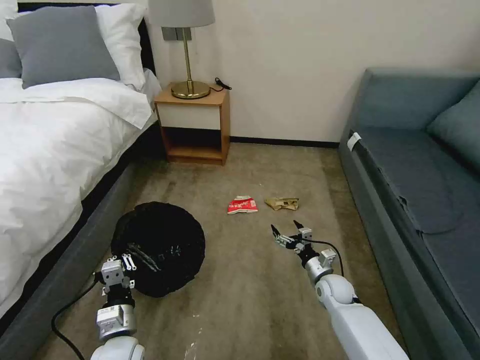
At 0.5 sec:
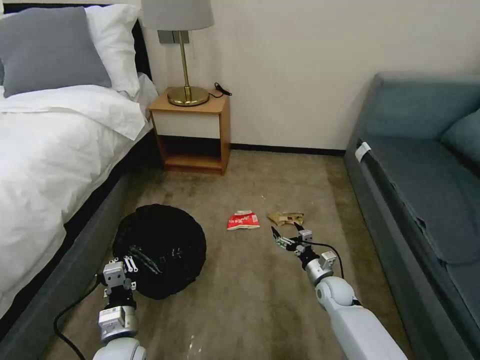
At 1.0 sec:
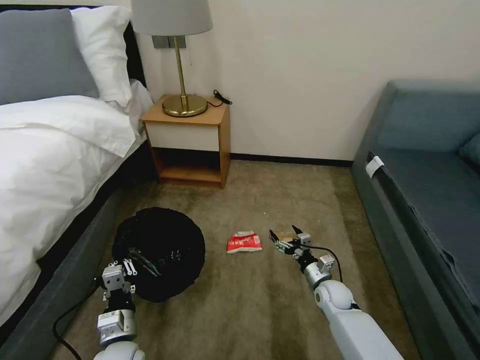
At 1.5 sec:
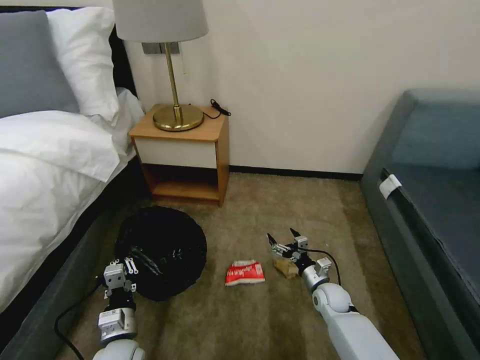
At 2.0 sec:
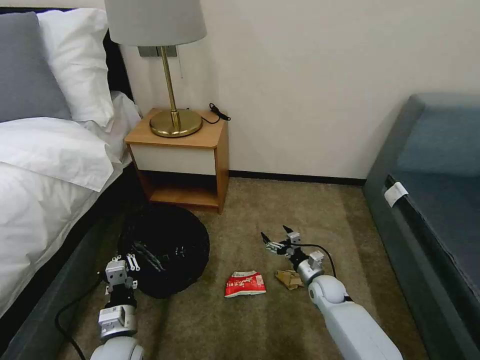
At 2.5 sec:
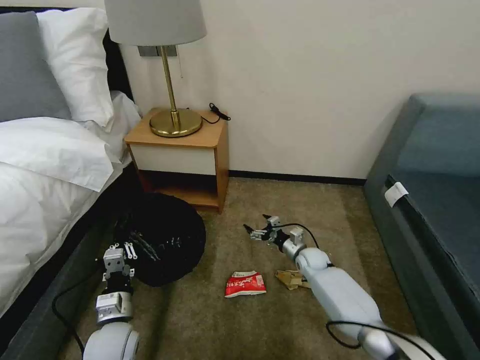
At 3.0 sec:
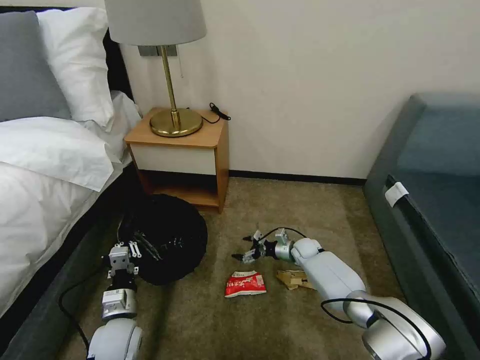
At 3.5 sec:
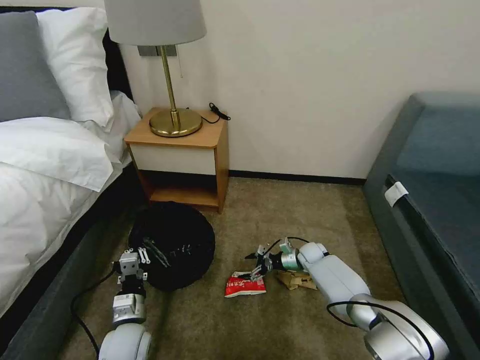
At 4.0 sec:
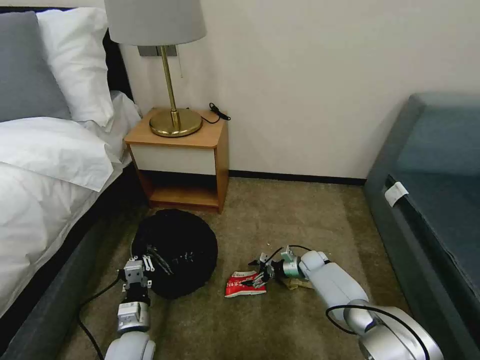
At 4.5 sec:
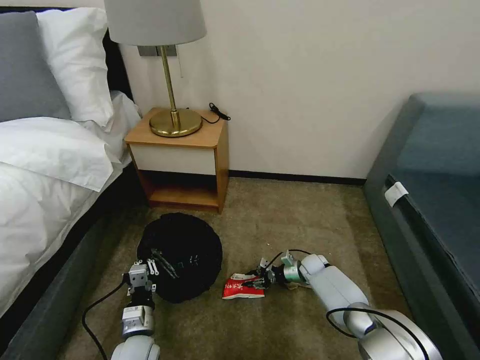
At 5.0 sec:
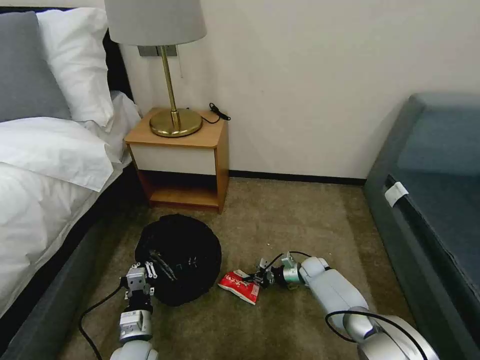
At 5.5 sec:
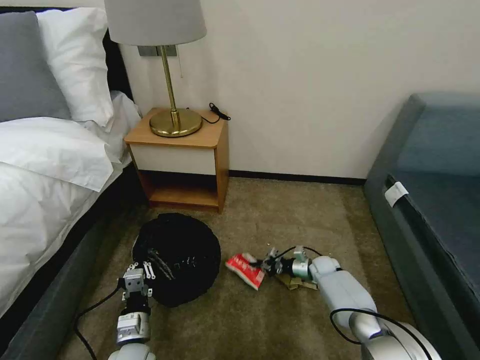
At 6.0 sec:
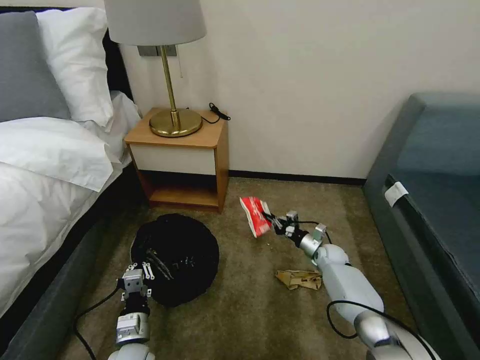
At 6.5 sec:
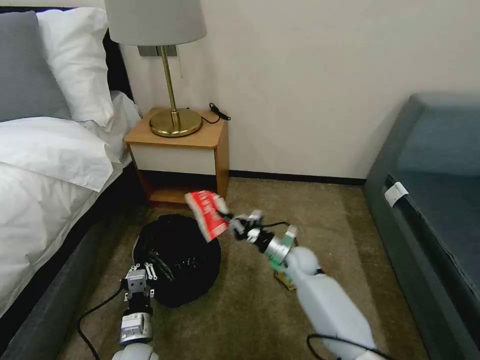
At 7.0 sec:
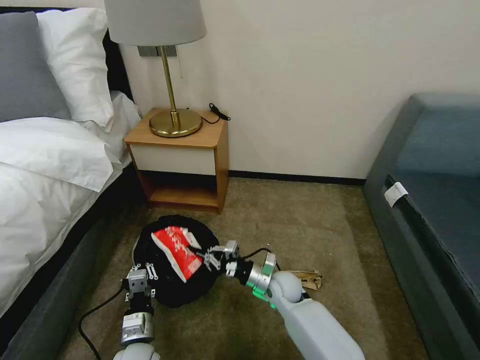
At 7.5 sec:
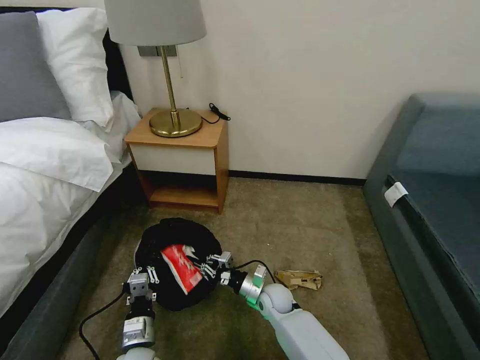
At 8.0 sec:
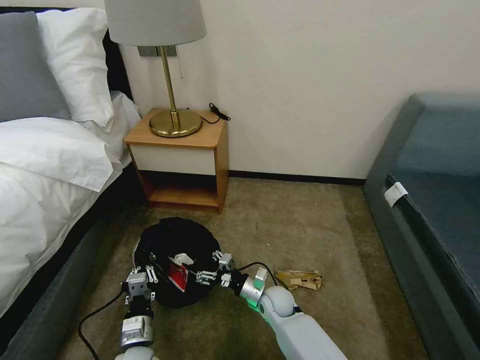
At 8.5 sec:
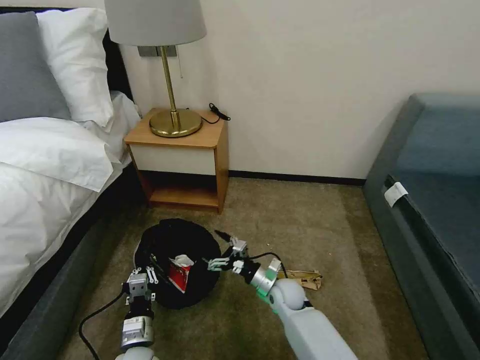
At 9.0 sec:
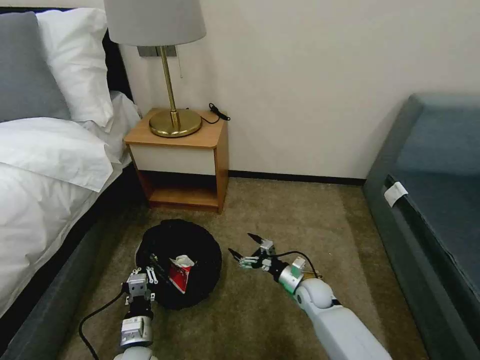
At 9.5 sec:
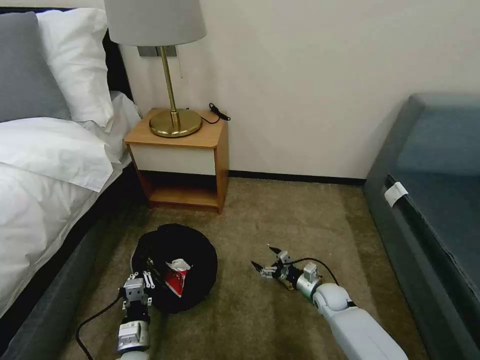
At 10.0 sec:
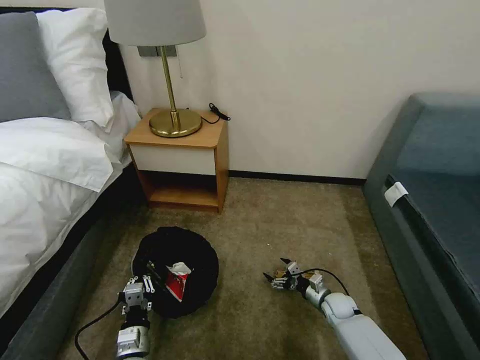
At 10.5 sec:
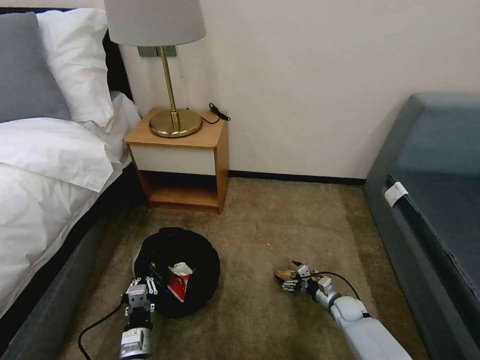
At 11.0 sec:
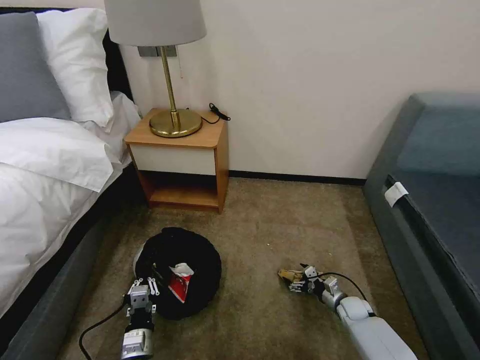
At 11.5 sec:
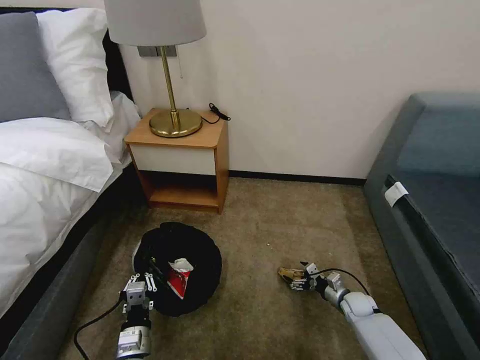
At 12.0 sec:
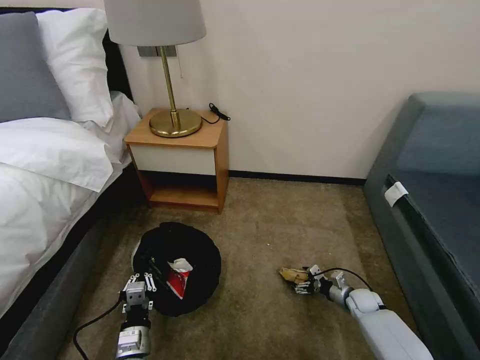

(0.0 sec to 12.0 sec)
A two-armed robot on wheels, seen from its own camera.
Task of the whole recording: Pick up the trash bin, then pick up the garbage on the floor and place it into the trash bin.
2.0 sec - 4.0 sec: The right gripper shifts about 10 cm forward.
4.0 sec - 6.0 sec: The right gripper changes place by some 5 cm, and closes up.
6.0 sec - 8.0 sec: The right gripper goes roughly 25 cm to the left and backward, and opens up.
8.0 sec - 10.0 sec: The right gripper heads to the right, covering roughly 20 cm.
10.0 sec - 12.0 sec: The right gripper goes some 10 cm to the right.

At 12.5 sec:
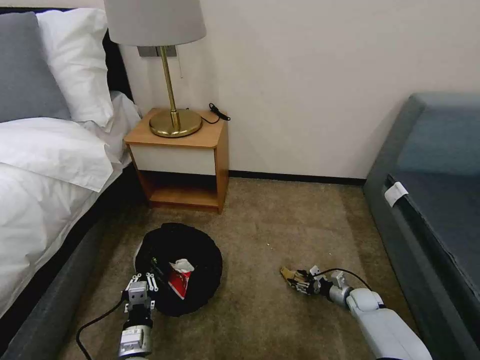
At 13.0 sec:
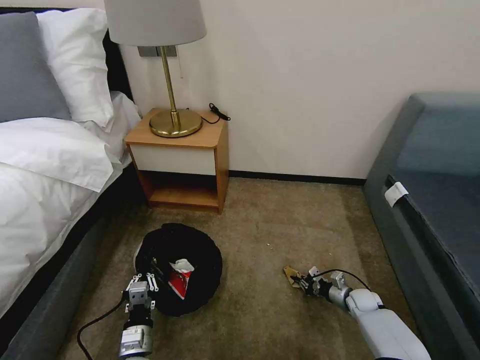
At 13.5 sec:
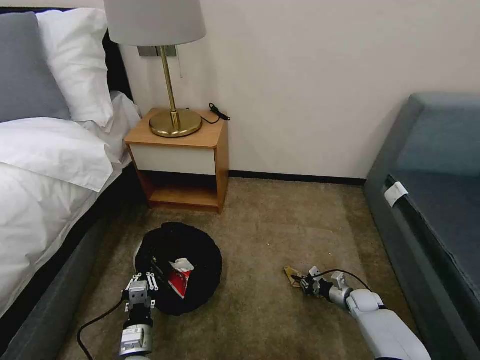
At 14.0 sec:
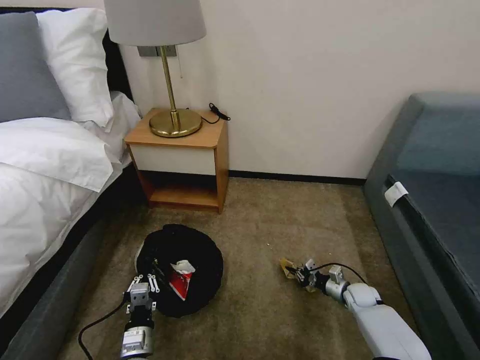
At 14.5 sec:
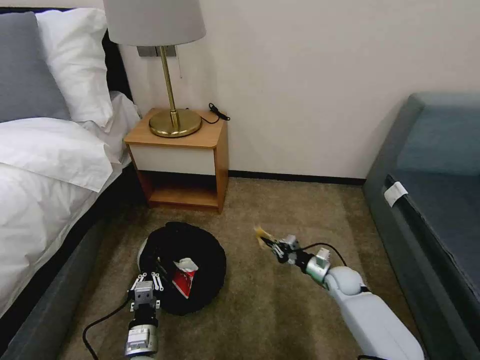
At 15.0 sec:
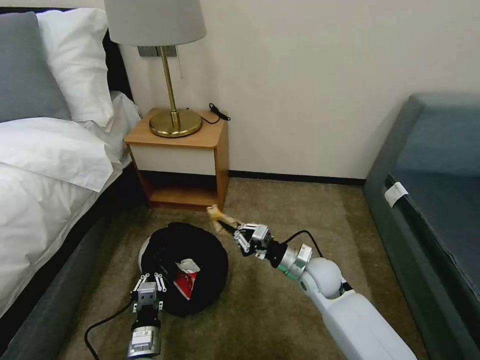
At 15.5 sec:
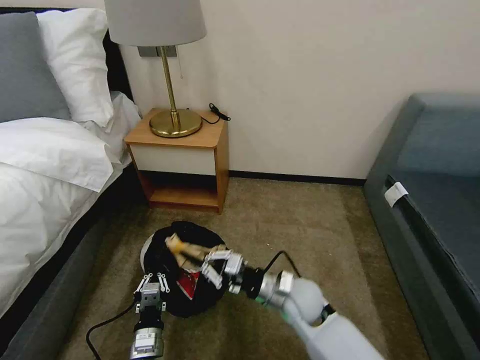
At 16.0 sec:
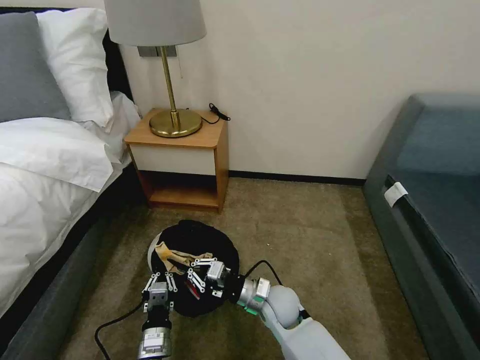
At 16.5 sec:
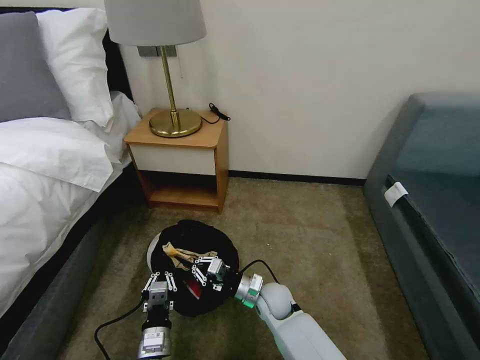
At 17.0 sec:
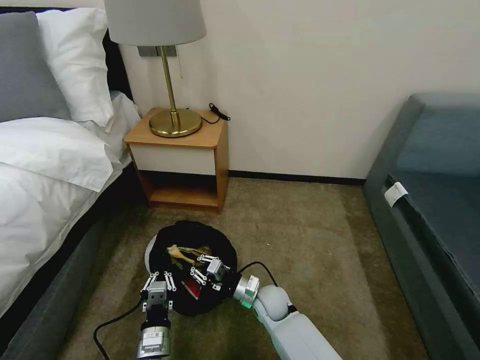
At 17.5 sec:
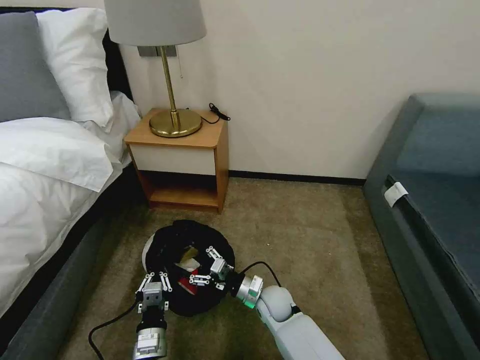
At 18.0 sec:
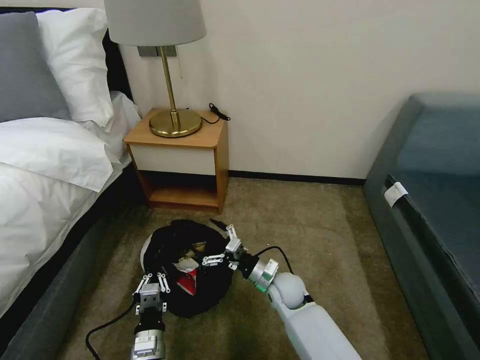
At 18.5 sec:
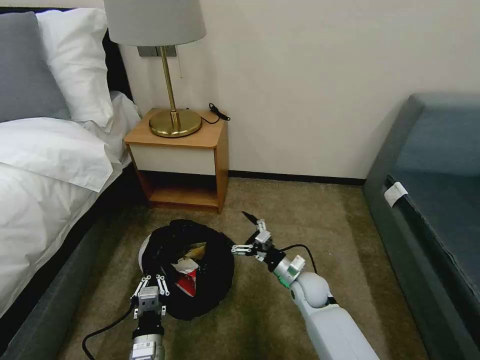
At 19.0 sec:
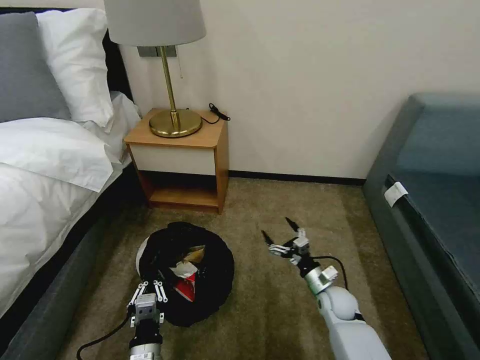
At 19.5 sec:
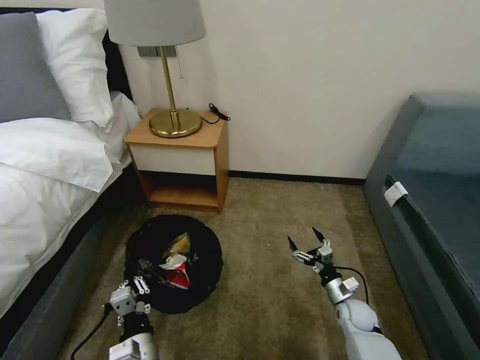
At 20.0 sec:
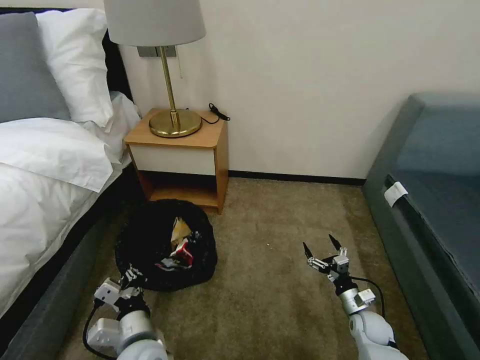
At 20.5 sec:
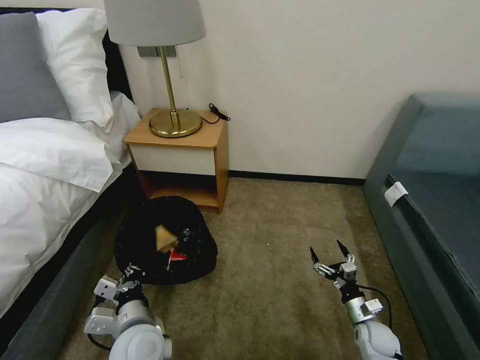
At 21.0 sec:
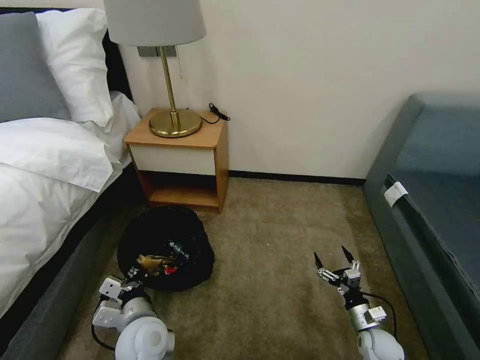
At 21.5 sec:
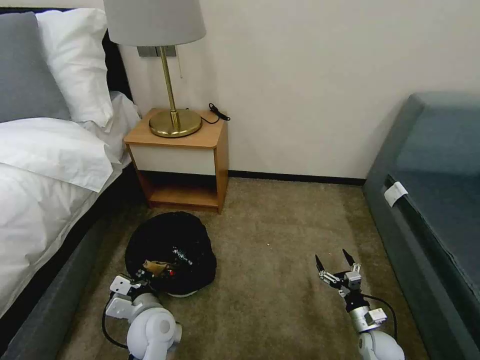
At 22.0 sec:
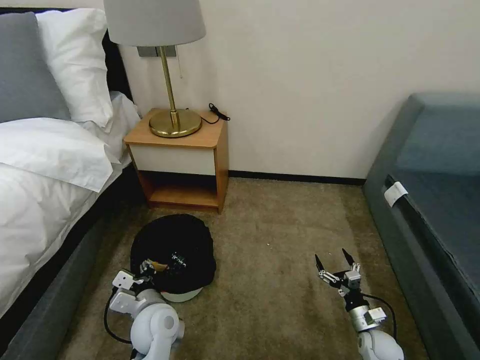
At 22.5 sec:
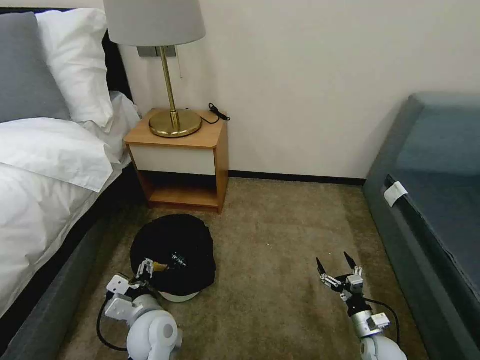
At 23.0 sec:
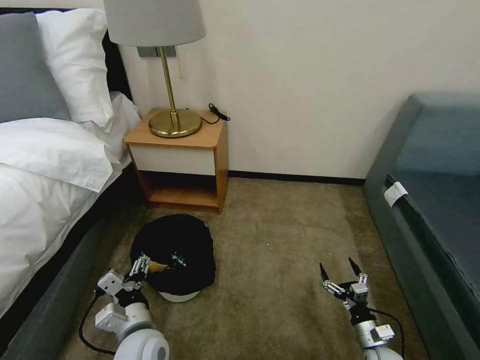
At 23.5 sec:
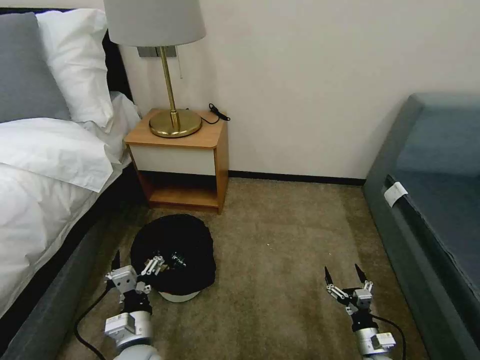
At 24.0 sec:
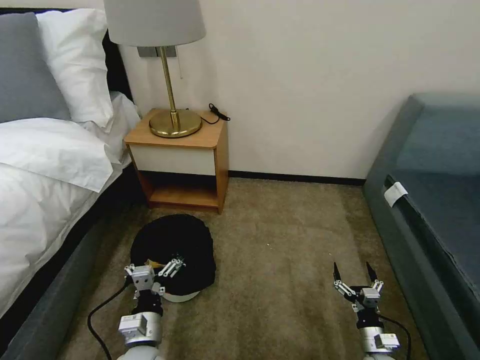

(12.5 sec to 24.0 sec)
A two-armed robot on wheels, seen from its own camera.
Task of the whole recording: Pick up the trash bin, then pick up the garbage on the floor and place it into the trash bin.
12.5 sec - 14.5 sec: The right gripper shifts roughly 15 cm to the left and upward, and closes up.
14.5 sec - 16.5 sec: The right gripper travels to the left by roughly 20 cm.
16.5 sec - 18.5 sec: The right gripper shifts roughly 10 cm to the right, and opens its fingers.
18.5 sec - 20.0 sec: The right gripper heads to the right, downward and backward, covering some 20 cm. Meanwhile the left gripper moves upward, about 5 cm.
20.0 sec - 22.0 sec: The right gripper moves roughly 5 cm; the left gripper travels forward by roughly 10 cm, and opens.
22.0 sec - 24.0 sec: The grippers both shift backward by some 5 cm. The left gripper opens its fingers.

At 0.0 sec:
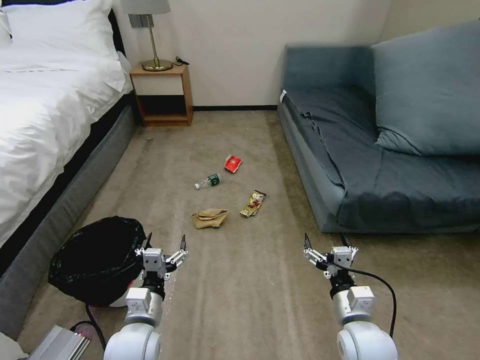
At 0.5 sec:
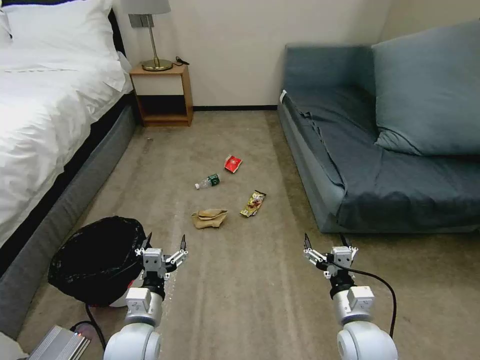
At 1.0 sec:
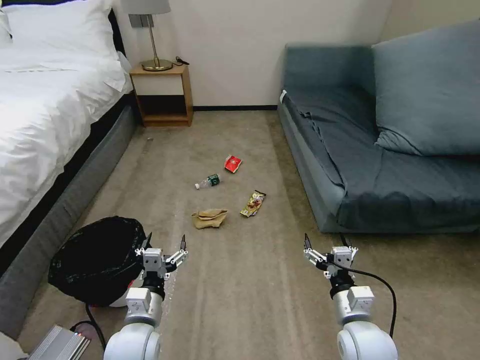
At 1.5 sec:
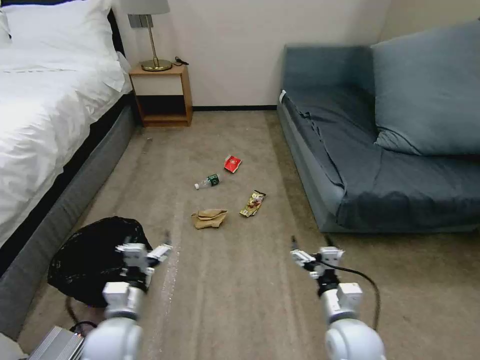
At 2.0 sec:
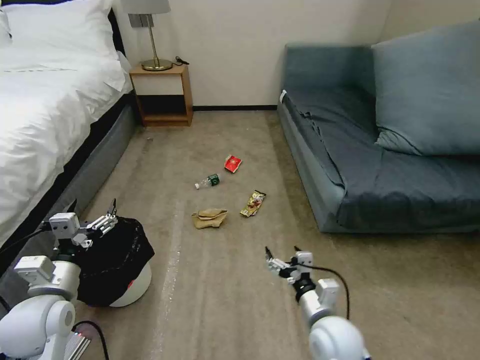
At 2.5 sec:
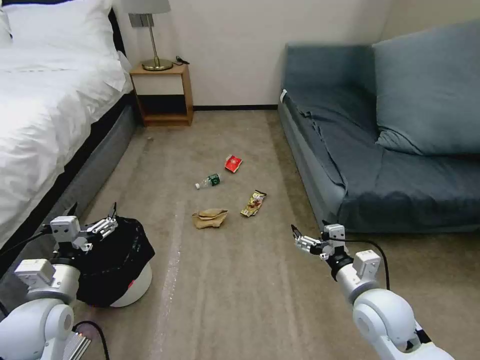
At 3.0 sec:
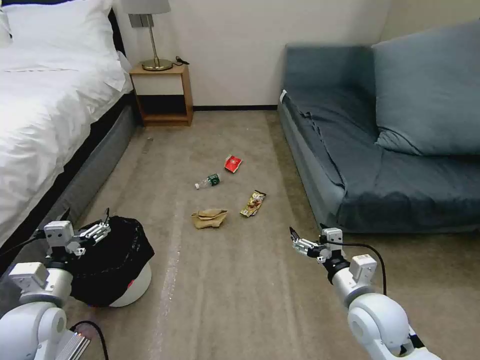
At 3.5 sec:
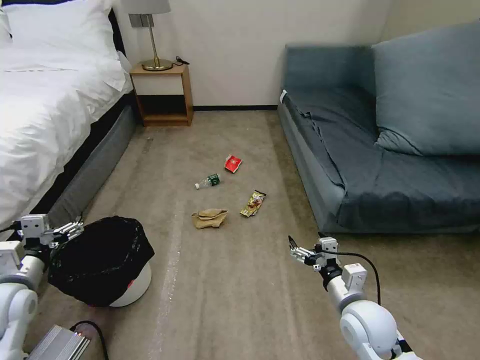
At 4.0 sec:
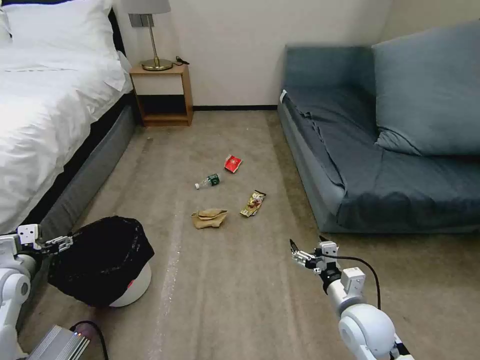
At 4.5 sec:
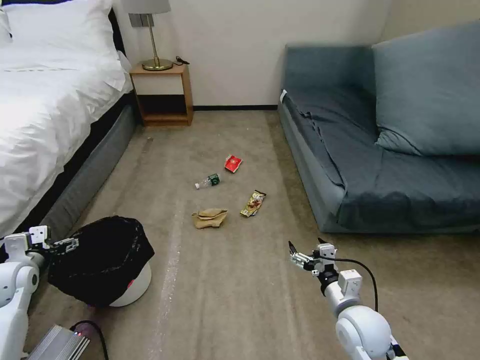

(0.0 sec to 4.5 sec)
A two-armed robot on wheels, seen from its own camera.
Task of the whole recording: Pick up the trash bin, then pick up the garbage on the floor and place it into the trash bin.
2.0 sec - 4.5 sec: The left gripper moves to the left and forward, some 15 cm; the right gripper heads to the right, covering some 5 cm.
